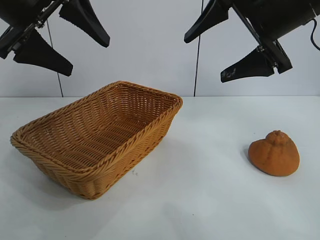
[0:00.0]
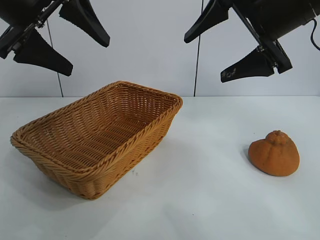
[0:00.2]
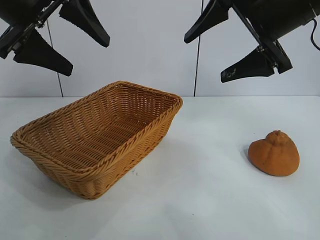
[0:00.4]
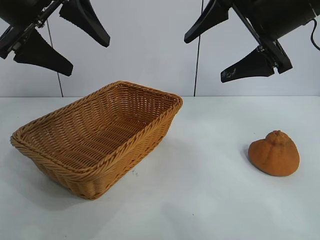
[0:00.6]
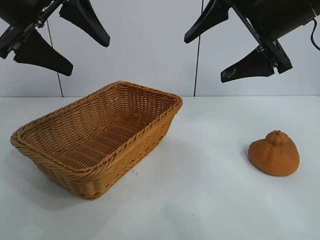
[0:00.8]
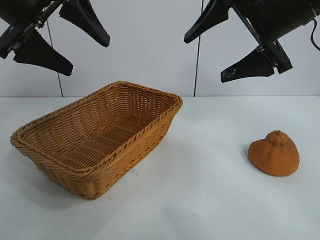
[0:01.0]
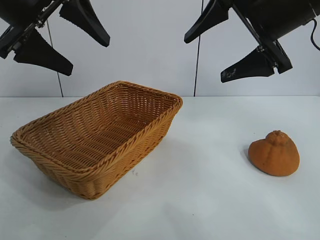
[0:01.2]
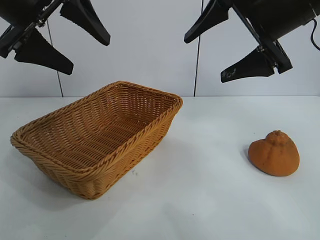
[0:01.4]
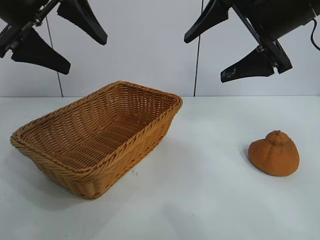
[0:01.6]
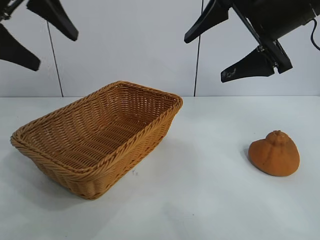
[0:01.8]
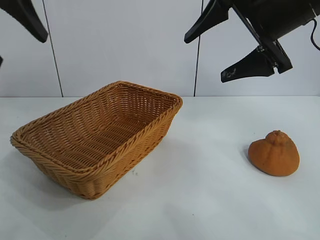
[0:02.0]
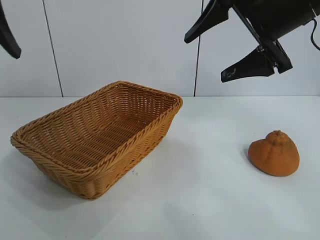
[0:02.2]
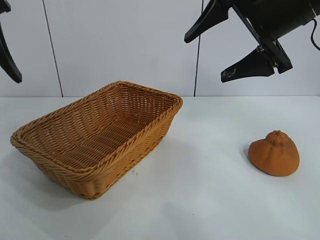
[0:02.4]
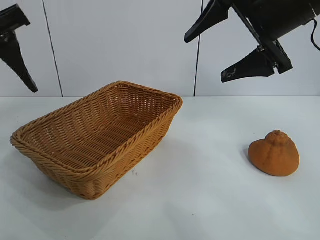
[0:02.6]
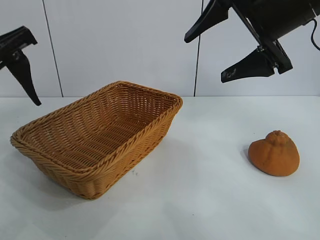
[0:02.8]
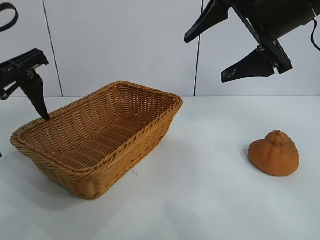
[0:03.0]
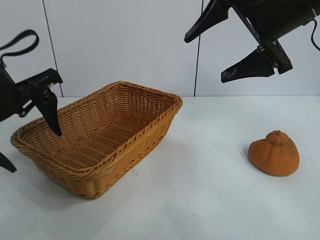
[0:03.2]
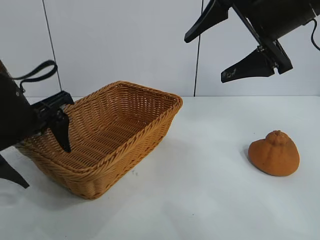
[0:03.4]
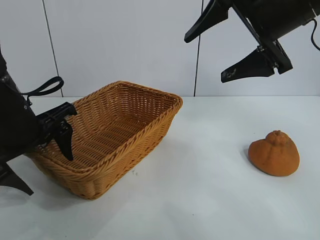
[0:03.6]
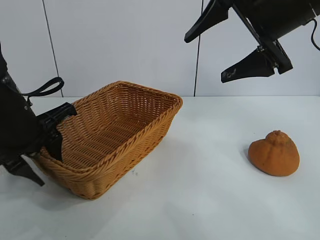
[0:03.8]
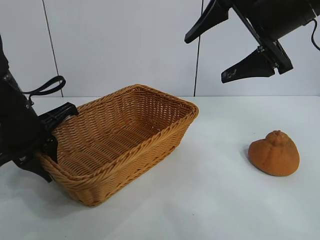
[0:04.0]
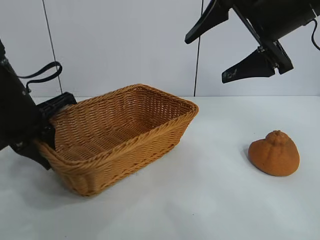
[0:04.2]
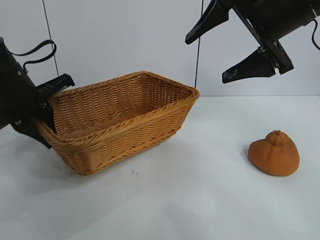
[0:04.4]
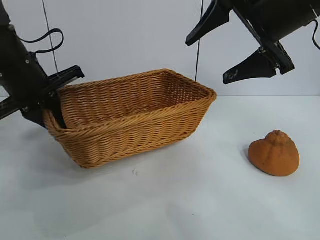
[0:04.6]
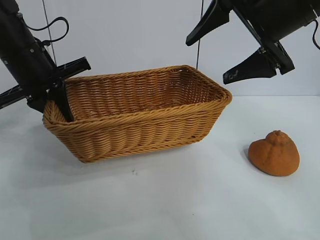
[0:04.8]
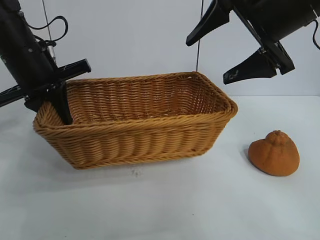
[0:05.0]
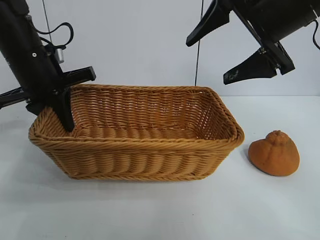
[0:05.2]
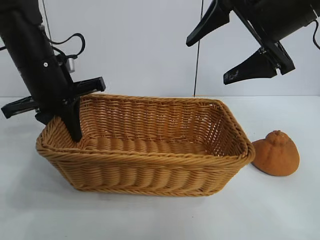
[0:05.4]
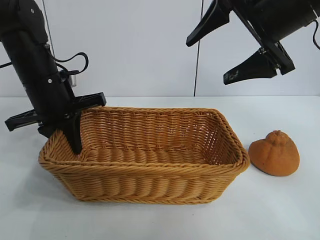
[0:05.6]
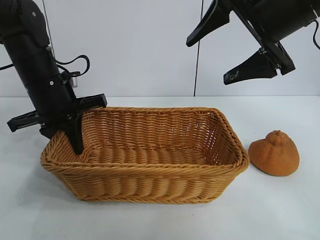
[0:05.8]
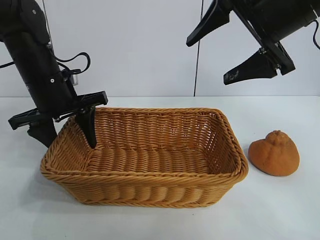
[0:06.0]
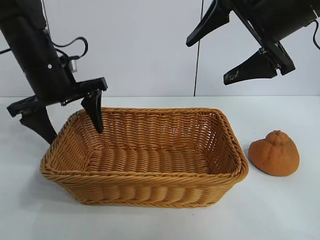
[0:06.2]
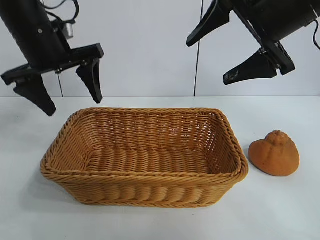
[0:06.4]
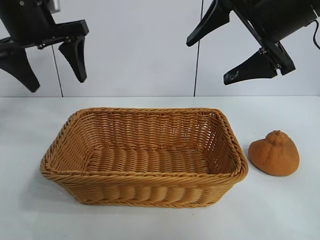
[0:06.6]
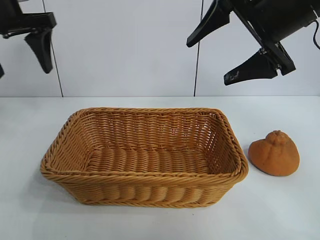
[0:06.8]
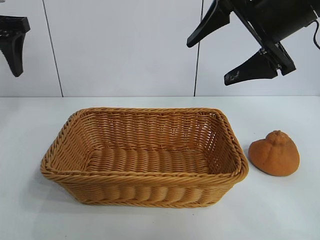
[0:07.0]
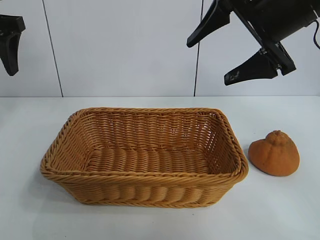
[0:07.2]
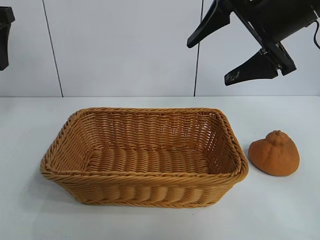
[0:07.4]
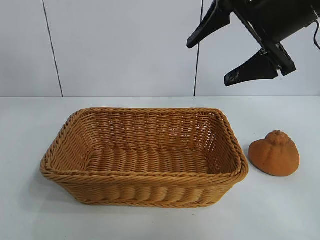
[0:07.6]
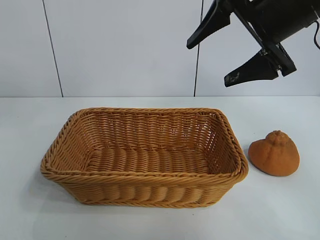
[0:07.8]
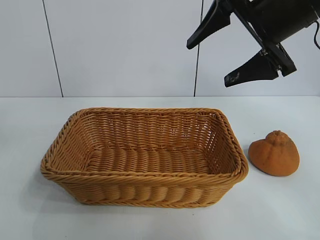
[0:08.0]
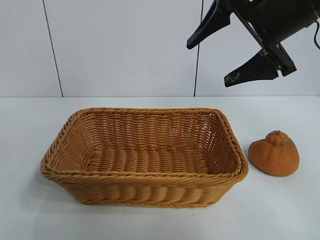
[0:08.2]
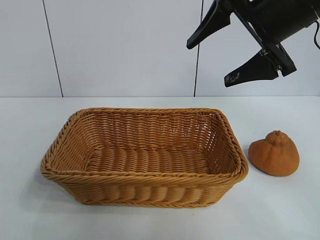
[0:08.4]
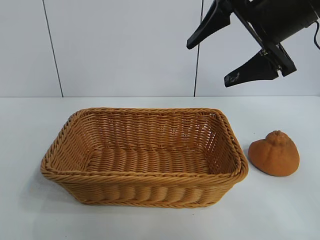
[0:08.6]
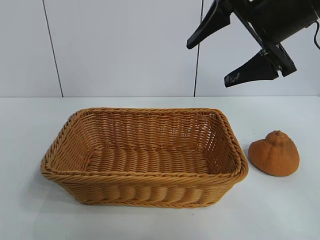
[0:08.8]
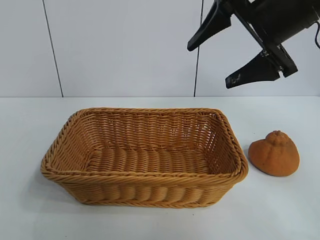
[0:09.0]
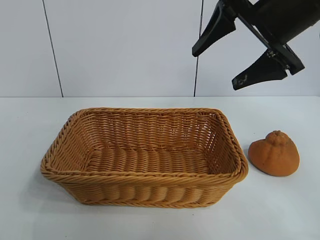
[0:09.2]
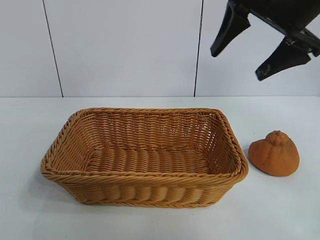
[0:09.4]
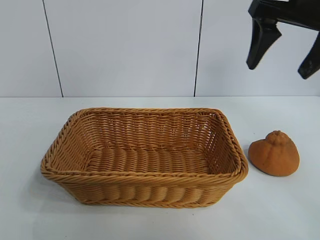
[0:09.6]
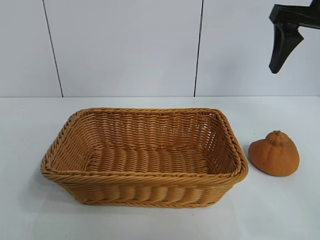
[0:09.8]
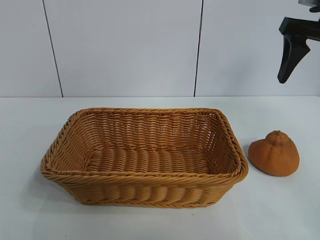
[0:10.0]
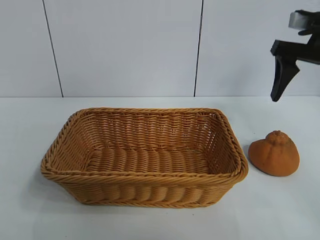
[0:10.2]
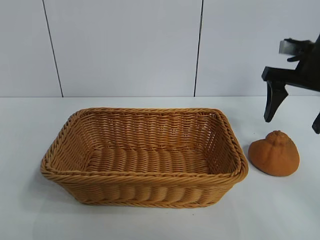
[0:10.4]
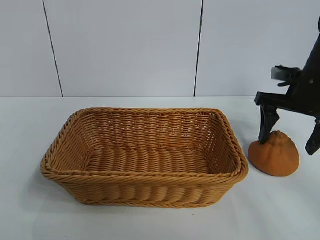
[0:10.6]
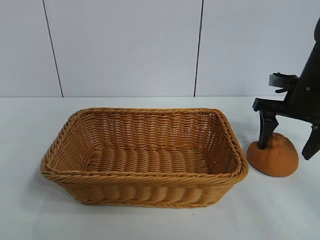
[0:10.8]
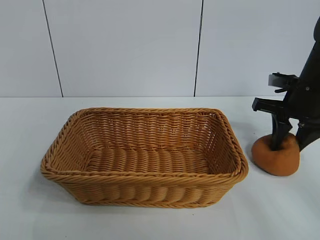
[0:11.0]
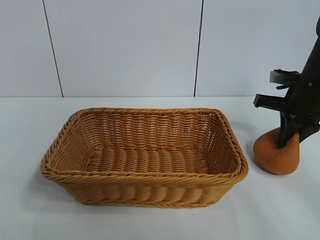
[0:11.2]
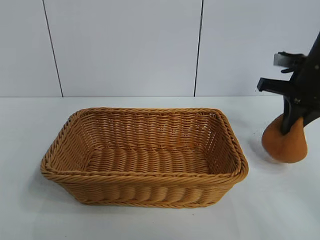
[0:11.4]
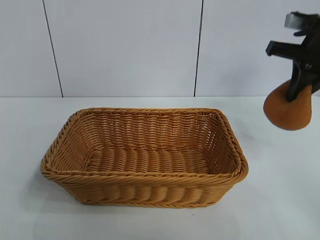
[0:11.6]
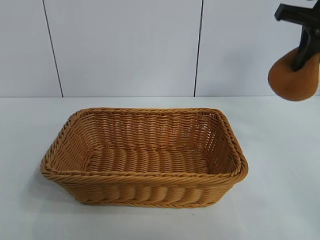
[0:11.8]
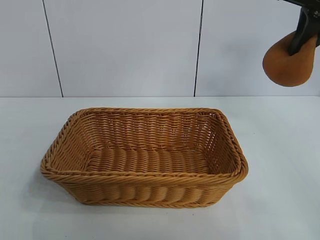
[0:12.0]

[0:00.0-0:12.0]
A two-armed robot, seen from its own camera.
Task of the whole recording: pick up the orange and put it into the basket.
Step, 0:01.2 to 0:04.0: Grasp the basket with left gripper.
Step, 0:04.2 to 0:06.0: Place the basket in the center of view with left gripper.
Step, 0:06.2 to 0:11.0: Grasp the orange with right gripper.

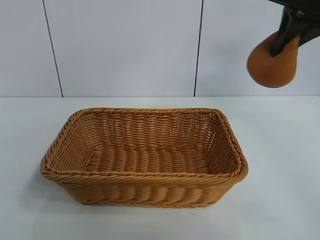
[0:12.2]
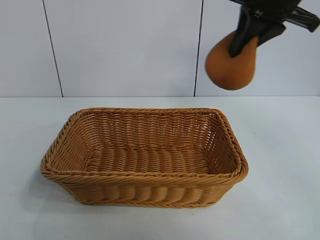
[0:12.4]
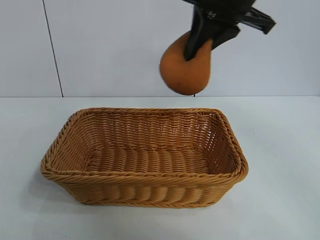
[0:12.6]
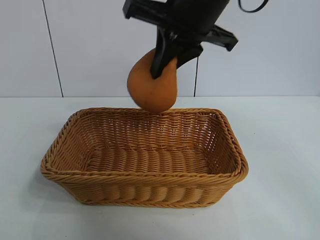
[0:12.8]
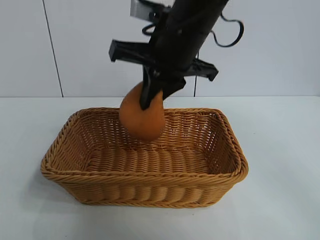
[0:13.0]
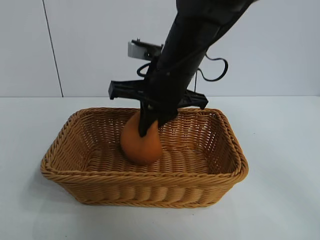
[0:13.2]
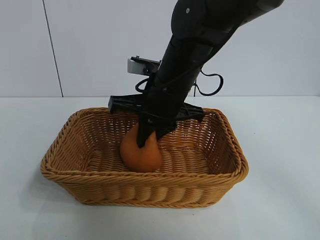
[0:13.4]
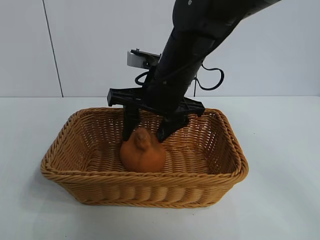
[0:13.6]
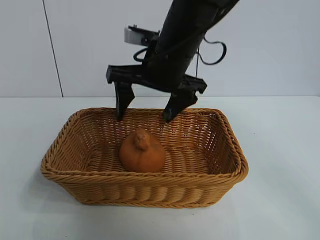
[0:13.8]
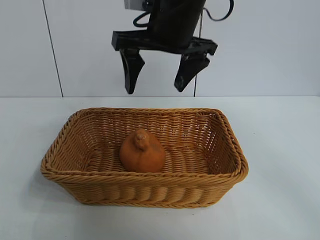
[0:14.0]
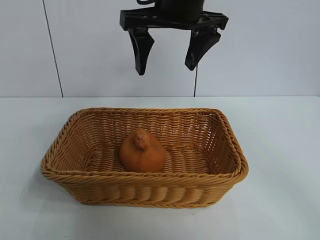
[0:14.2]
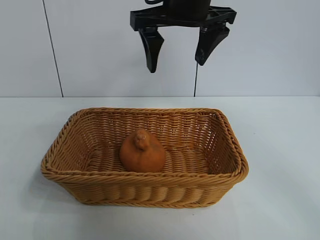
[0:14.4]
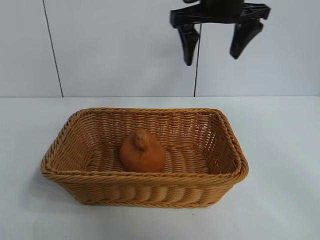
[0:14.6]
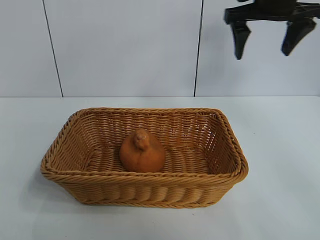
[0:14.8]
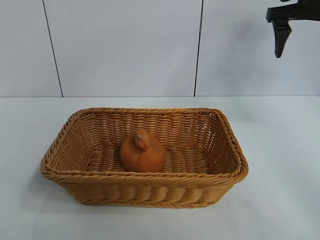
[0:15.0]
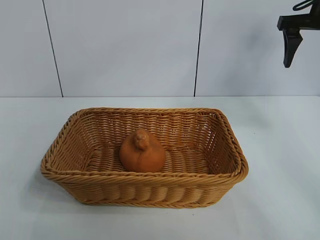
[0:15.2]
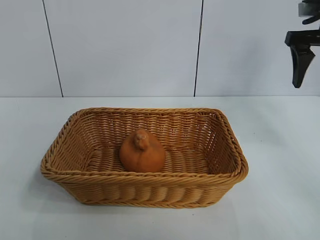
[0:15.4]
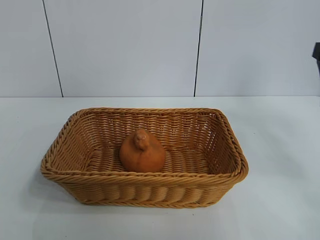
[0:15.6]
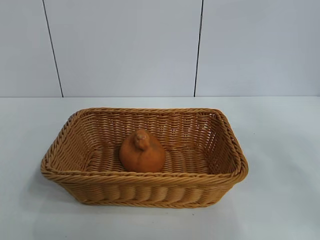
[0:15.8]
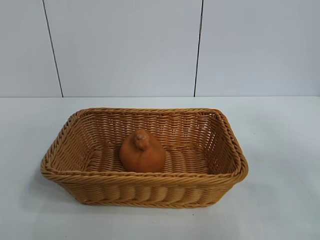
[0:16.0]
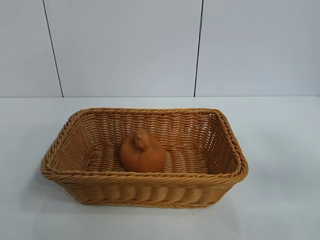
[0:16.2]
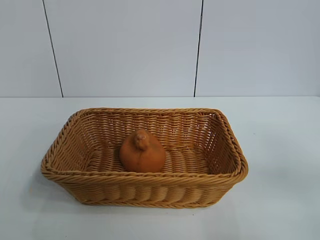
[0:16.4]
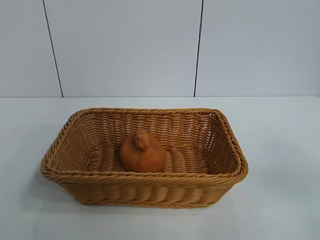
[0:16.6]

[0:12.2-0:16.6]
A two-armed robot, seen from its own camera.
Task of the whole recording: pick up the orange and put it into the basket.
Step, 0:12.2 to 0:13.8: Place the orange in the basket with right gripper.

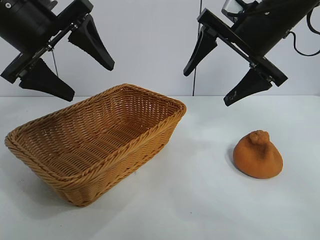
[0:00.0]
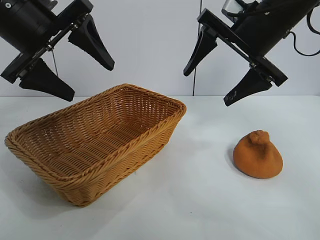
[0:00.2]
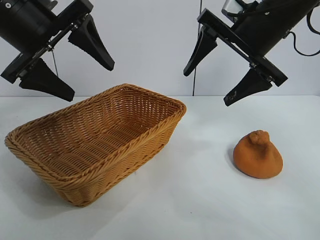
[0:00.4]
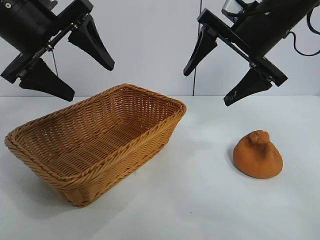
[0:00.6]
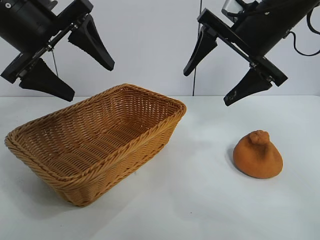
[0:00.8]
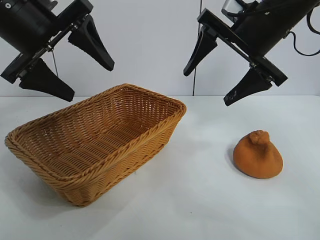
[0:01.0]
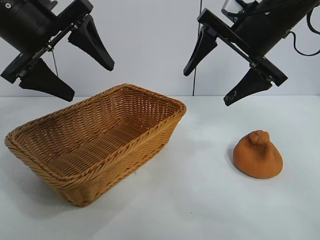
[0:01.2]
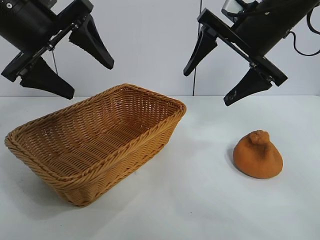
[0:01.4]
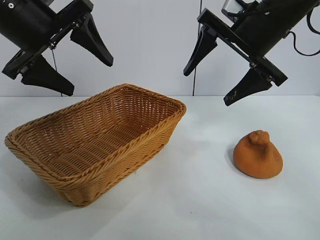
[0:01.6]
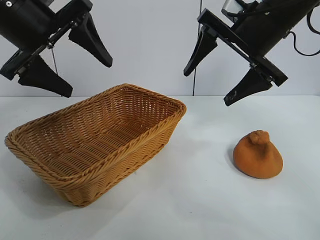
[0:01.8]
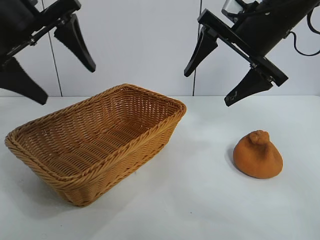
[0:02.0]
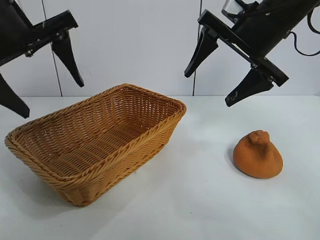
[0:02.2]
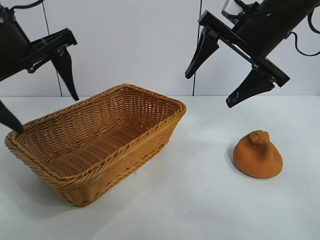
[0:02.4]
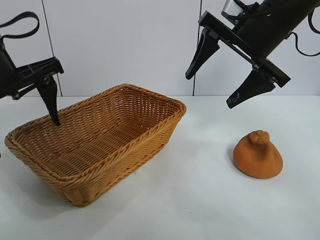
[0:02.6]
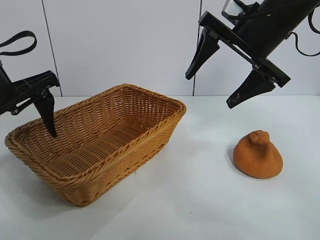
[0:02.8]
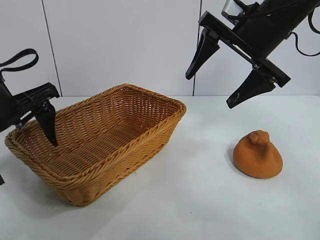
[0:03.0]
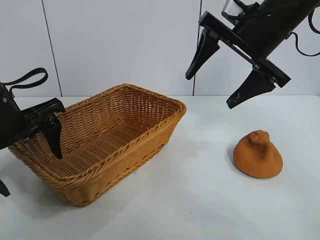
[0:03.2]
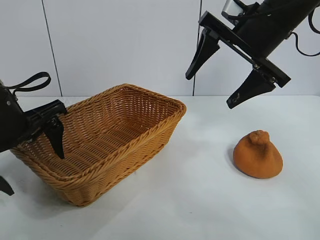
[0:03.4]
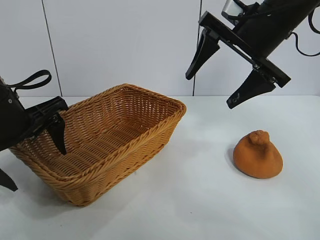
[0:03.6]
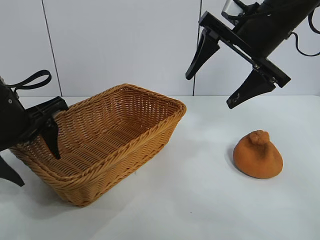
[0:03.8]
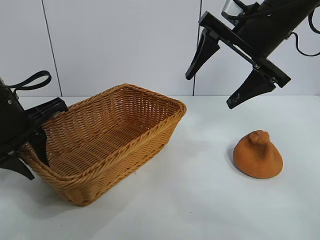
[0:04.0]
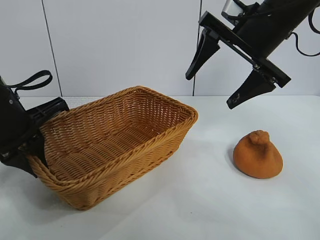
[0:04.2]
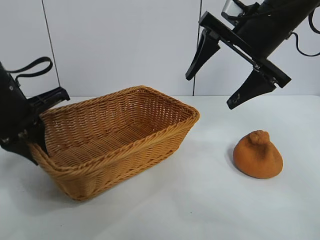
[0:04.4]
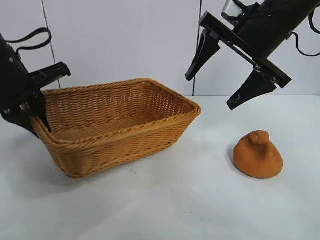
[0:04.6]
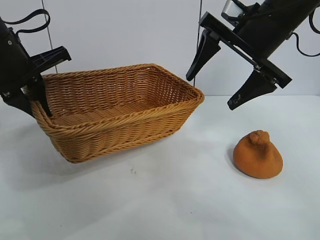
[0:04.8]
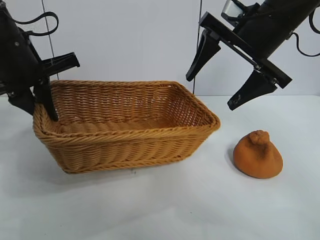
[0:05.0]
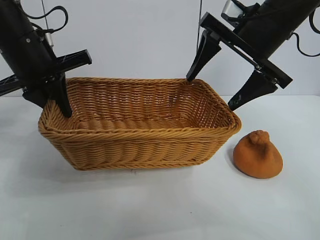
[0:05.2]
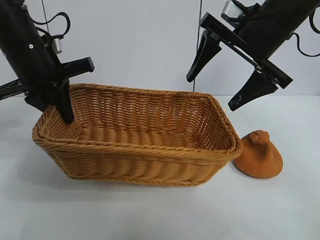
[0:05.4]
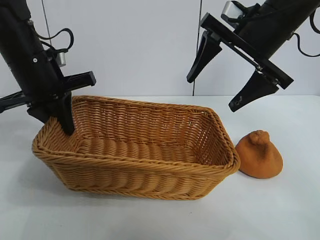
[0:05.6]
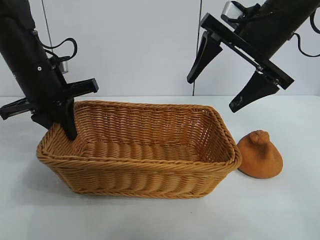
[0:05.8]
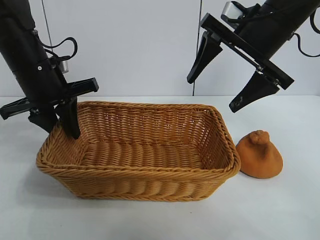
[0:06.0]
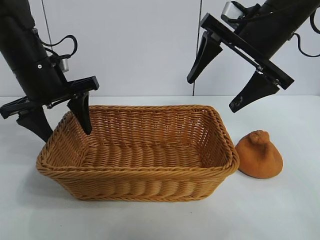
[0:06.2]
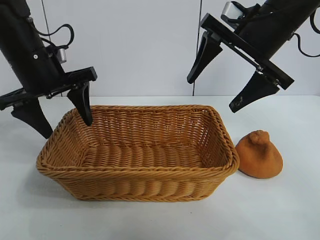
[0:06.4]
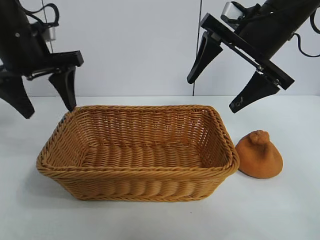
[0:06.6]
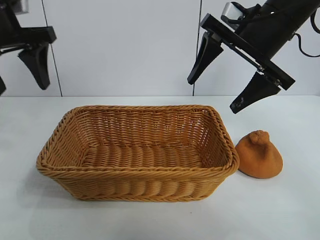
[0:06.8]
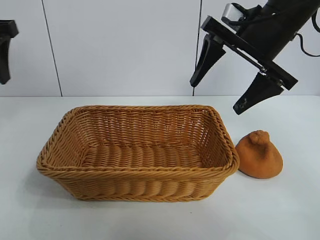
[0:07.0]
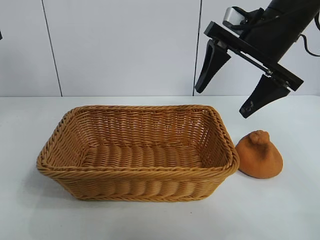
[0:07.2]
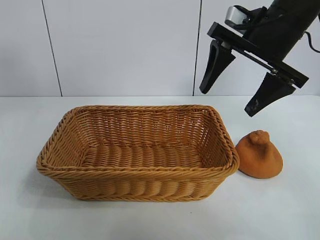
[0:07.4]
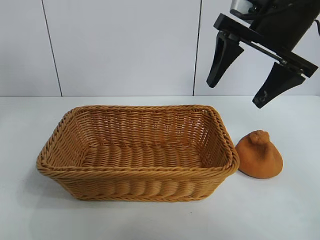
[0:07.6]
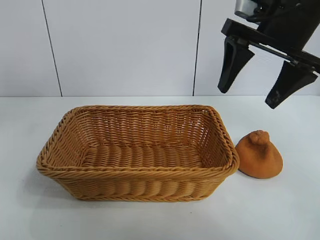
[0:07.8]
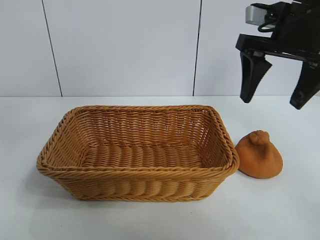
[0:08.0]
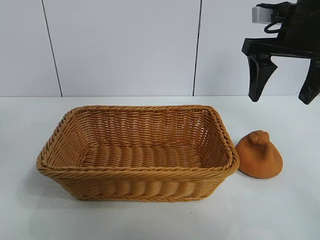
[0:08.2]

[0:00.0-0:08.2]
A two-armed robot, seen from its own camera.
Task of the whole recording: pick up the orange and put it into the basket.
Step, 0:01.4 to 0:04.0: Grasp the basket with left gripper.
Step, 0:04.2 to 0:06.2: Place the basket in the center of view with left gripper.